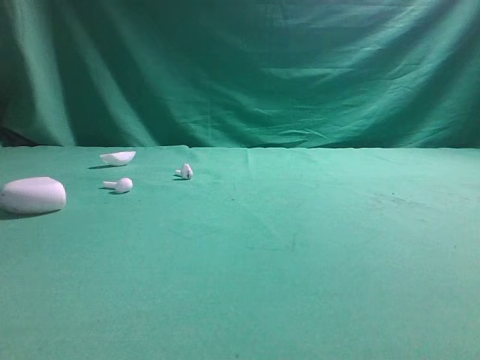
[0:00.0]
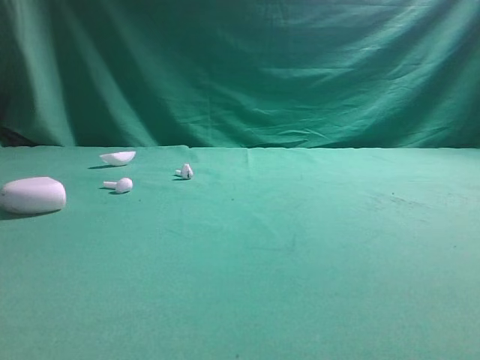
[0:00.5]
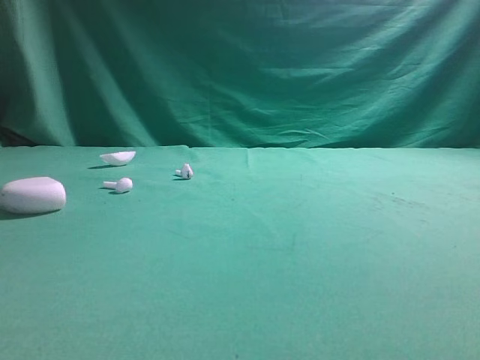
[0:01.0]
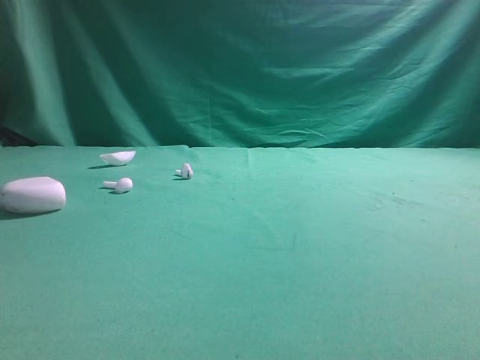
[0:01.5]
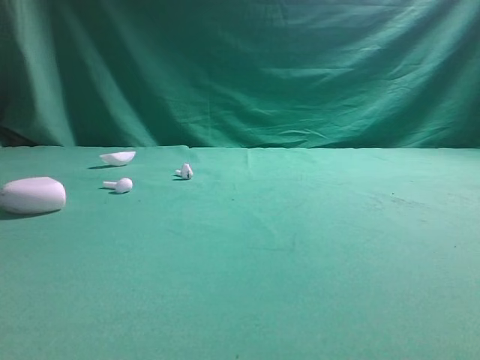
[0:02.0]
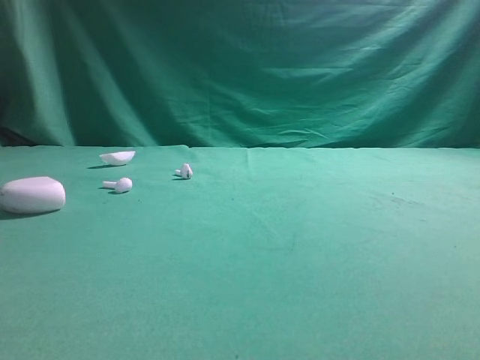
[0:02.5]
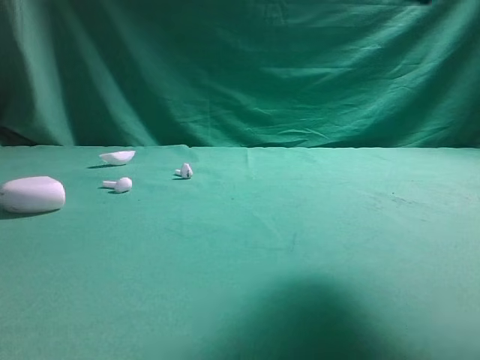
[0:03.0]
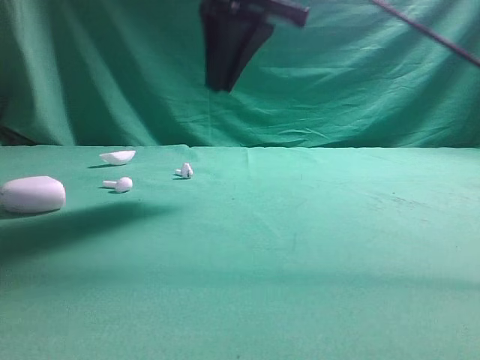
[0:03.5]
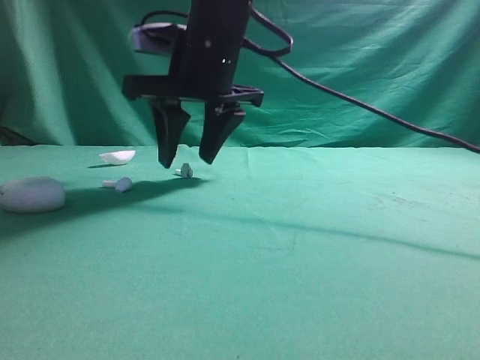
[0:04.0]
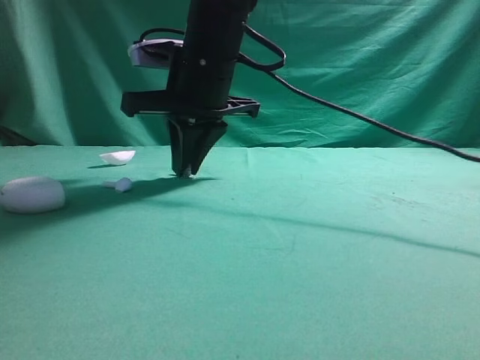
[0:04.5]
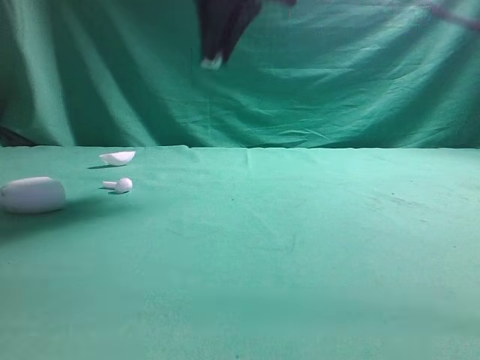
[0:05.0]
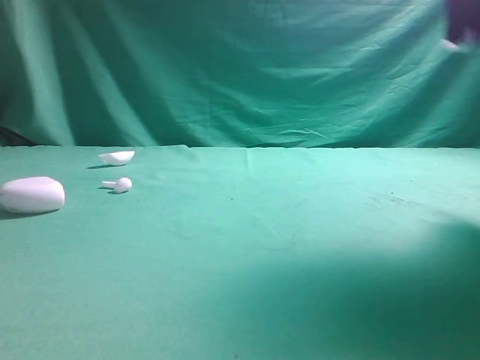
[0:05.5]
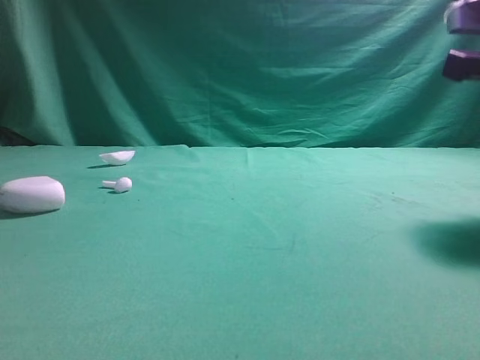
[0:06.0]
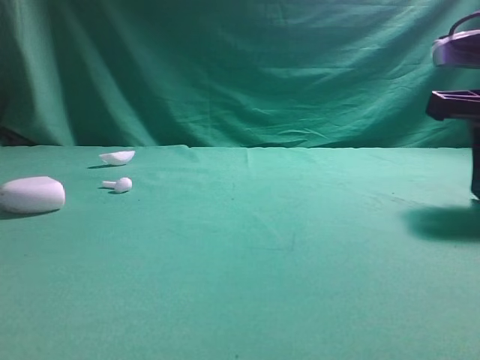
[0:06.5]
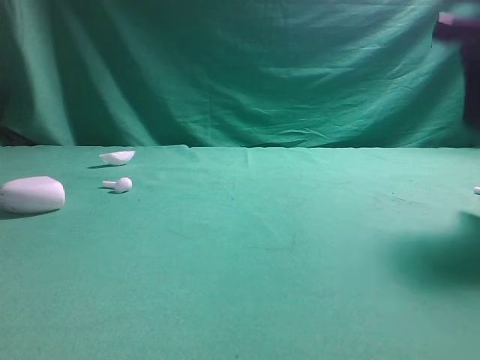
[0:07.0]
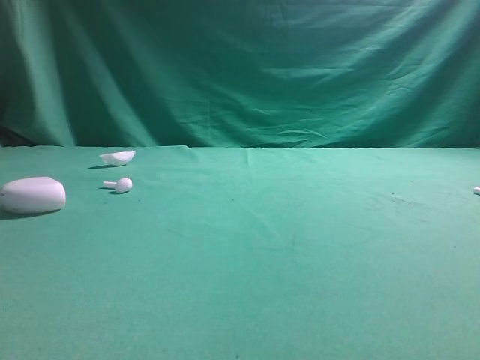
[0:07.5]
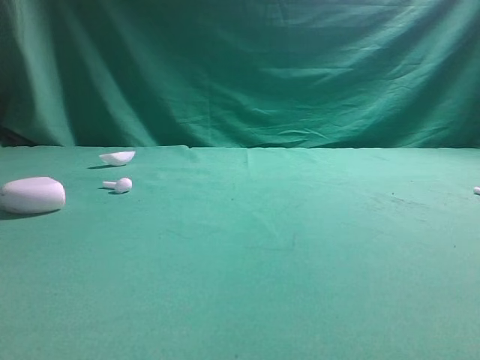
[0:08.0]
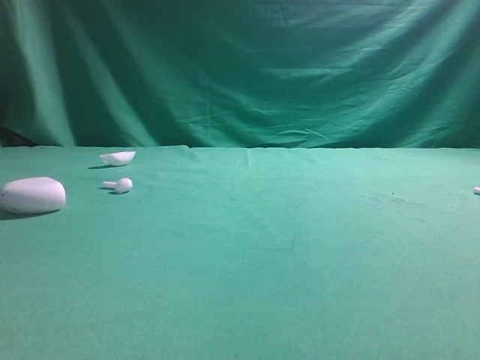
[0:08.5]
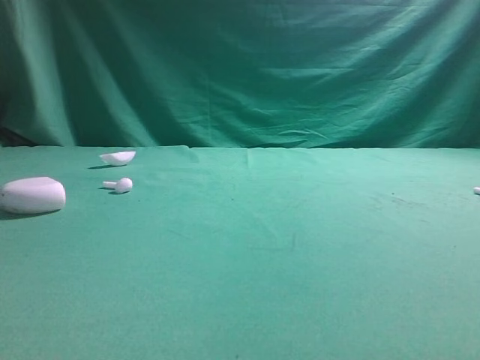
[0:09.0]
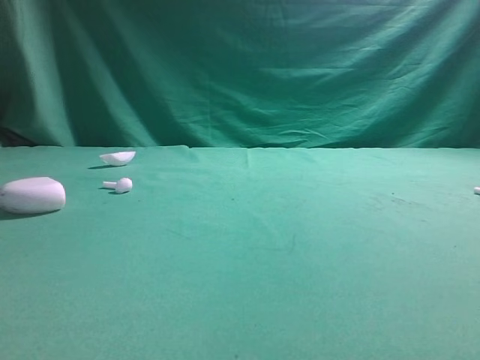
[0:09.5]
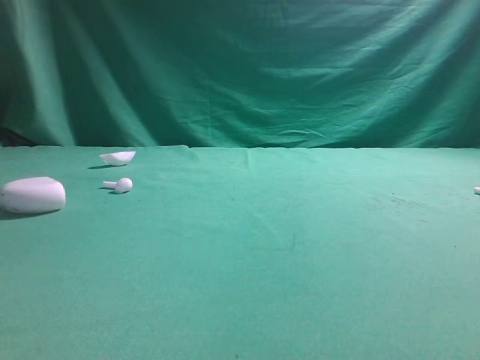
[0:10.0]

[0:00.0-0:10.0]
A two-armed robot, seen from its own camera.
Step, 0:00.0 to 0:04.5: Grasp the Bluetooth earbud.
Step, 0:05.0 to 0:06.5: Place bluetooth earbud on the right side of the table.

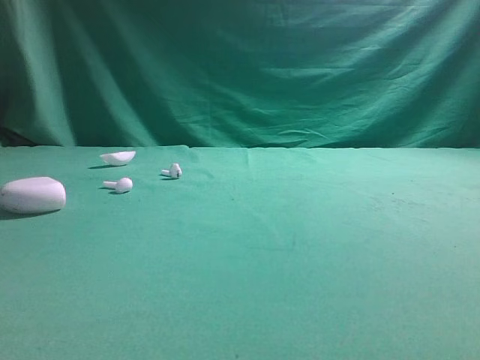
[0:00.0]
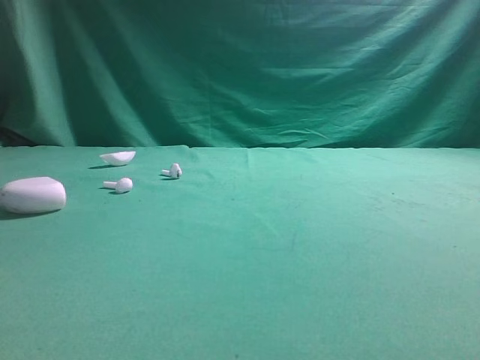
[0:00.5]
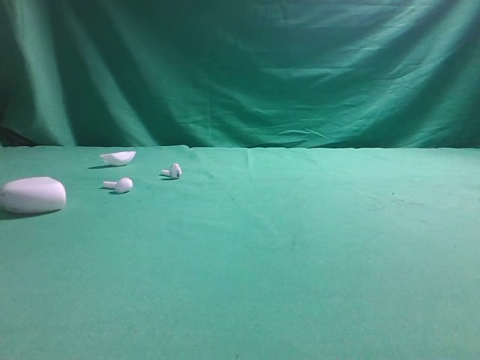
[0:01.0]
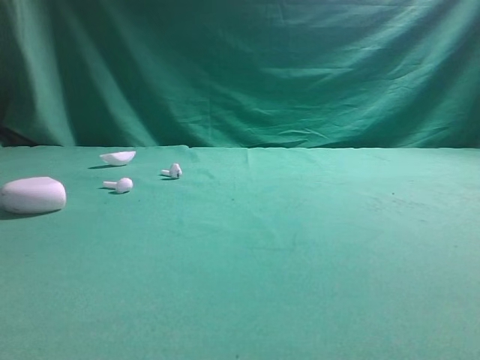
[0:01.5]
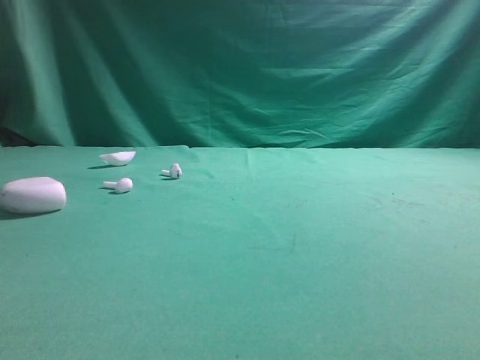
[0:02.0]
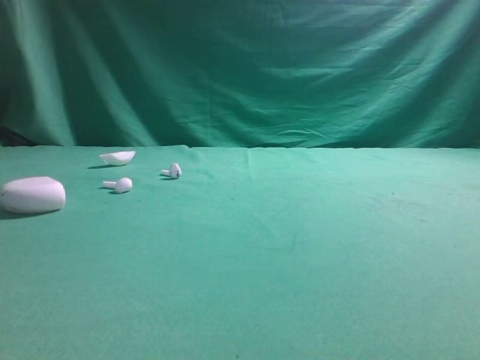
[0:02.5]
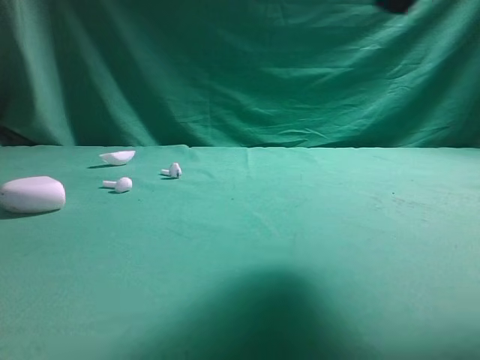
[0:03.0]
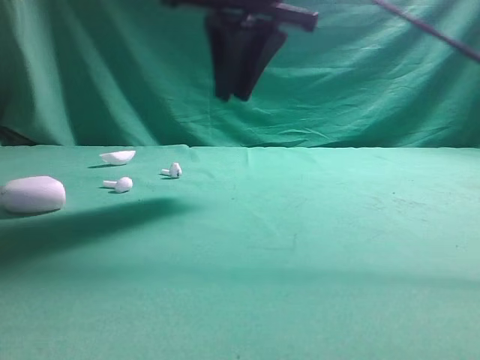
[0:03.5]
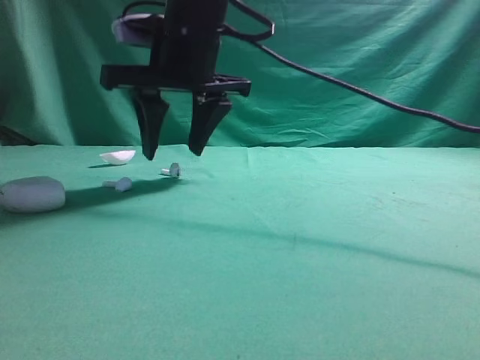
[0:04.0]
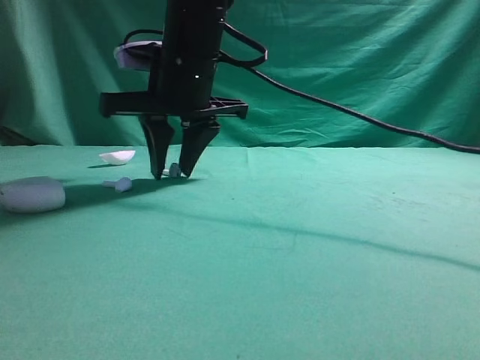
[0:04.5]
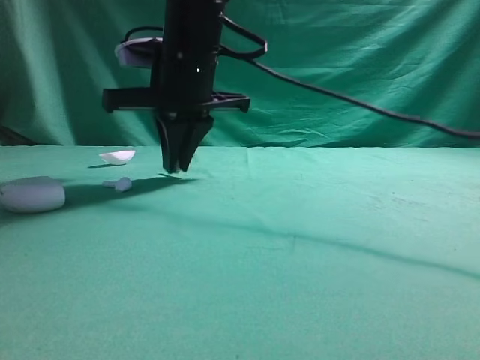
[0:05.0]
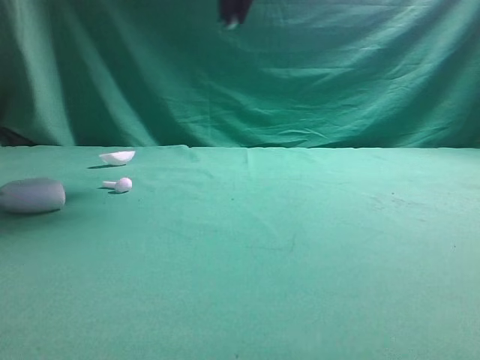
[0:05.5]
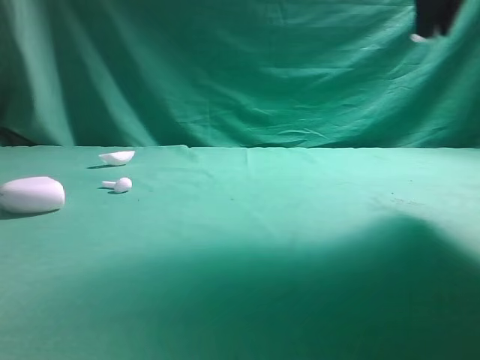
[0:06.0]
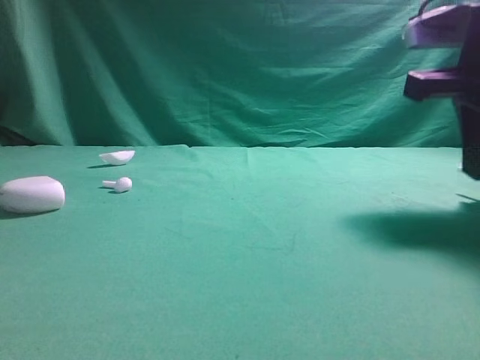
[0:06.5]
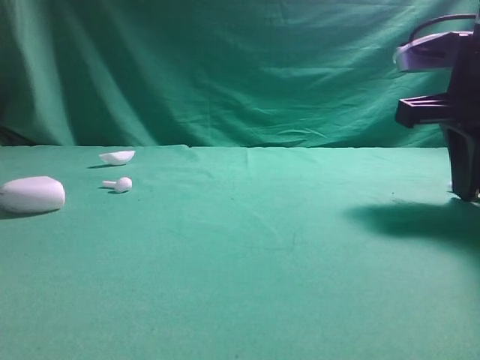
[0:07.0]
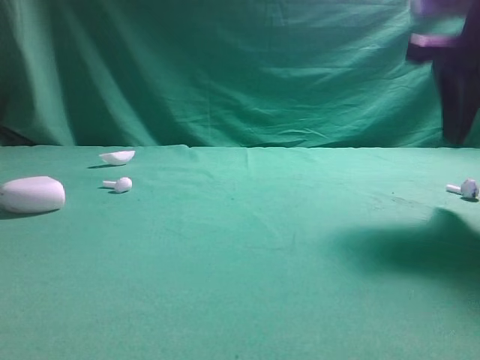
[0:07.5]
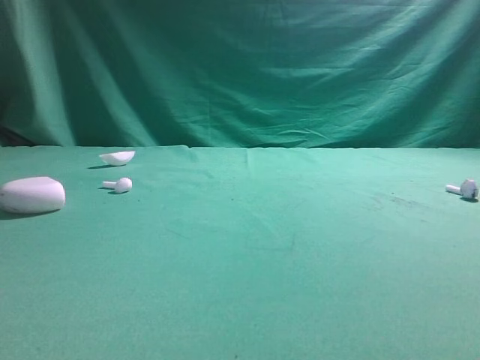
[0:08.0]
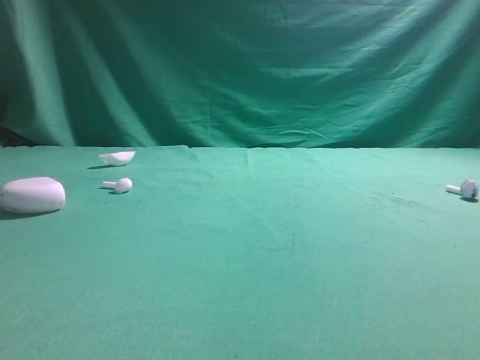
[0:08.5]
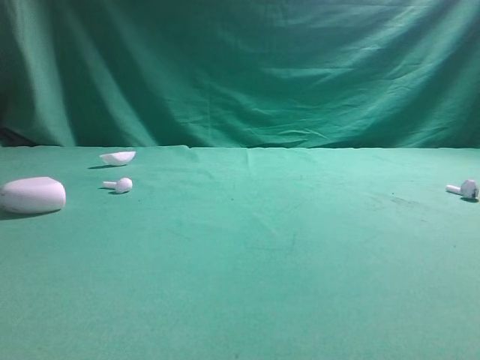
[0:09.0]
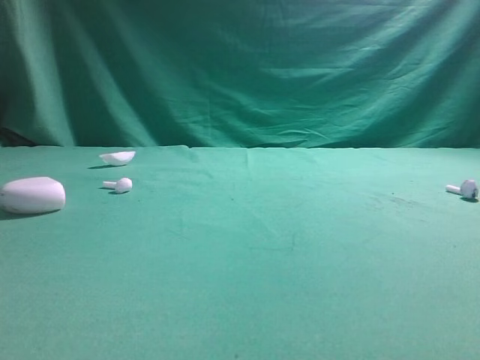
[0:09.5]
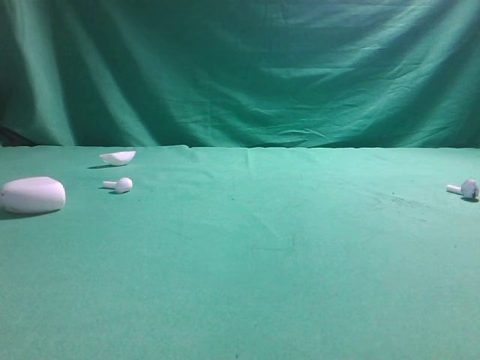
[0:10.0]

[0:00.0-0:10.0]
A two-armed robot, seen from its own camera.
Step, 0:00.0 to 0:04.5: Grasp the Bluetooth earbud.
Step, 0:05.0 to 0:06.5: Place bluetooth earbud on the right side of the table.

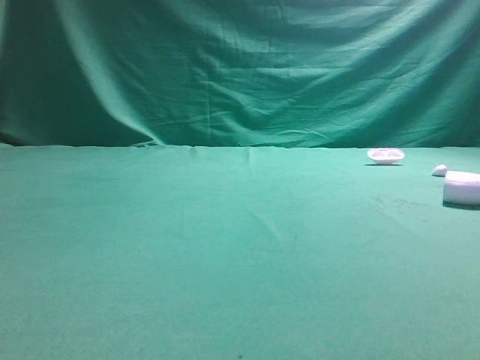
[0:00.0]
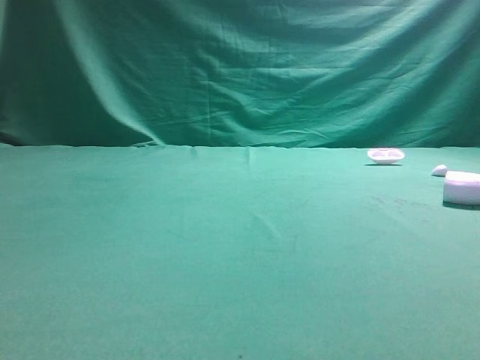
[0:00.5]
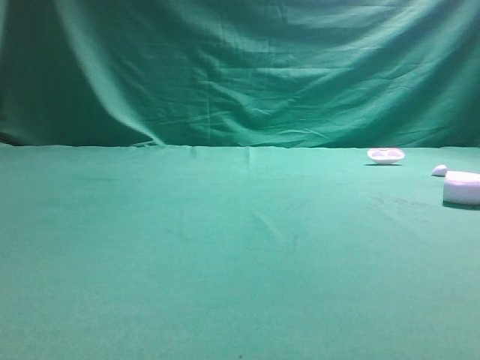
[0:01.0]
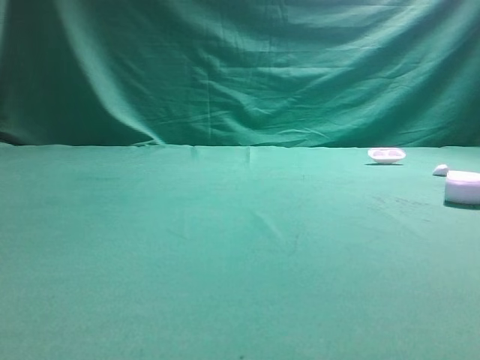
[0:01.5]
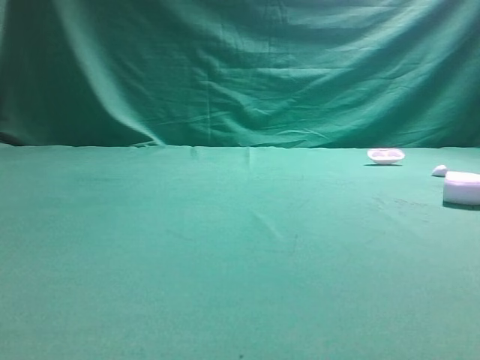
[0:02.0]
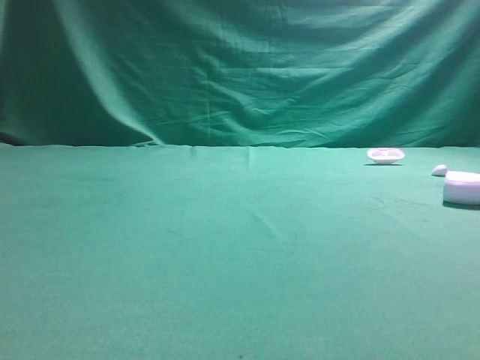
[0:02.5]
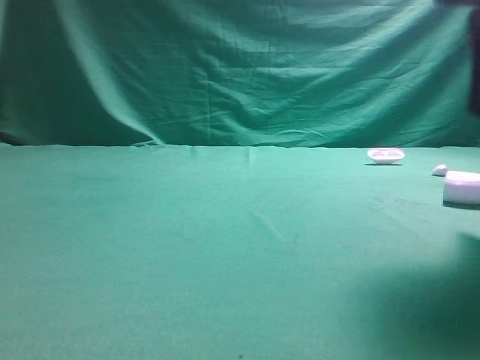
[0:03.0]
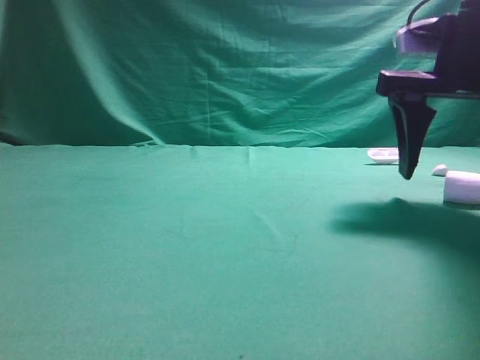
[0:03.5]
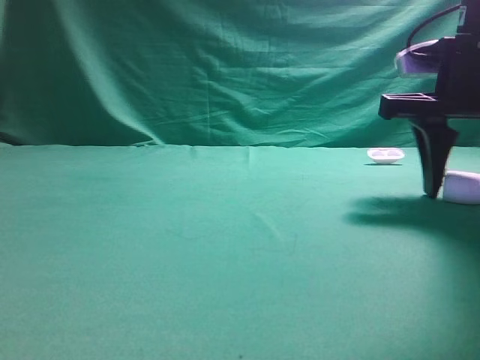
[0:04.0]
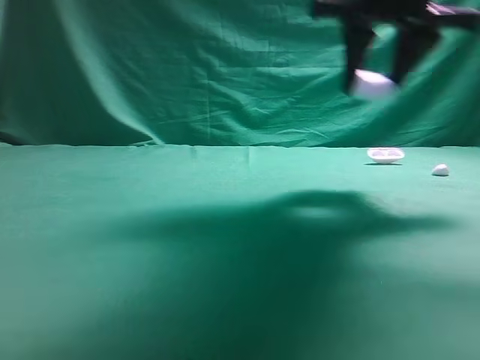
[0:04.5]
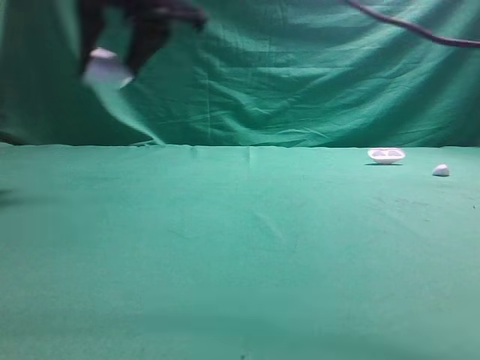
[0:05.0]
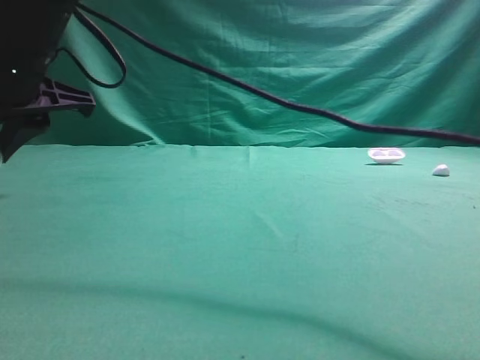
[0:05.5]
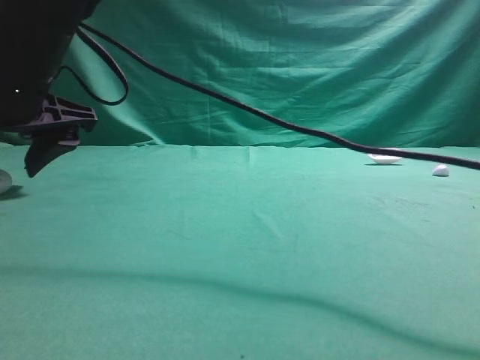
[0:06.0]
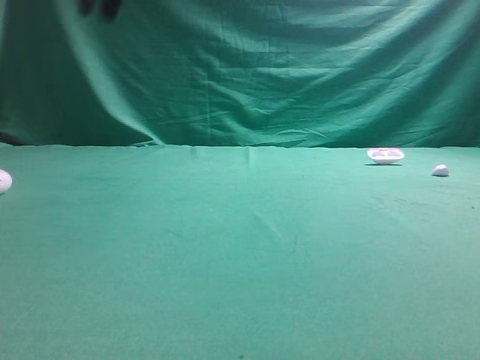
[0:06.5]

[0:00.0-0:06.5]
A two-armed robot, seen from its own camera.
Step, 0:00.0 to 0:04.0: Grasp the Bluetooth earphone case.
Step, 0:04.5 to 0:06.0: Place bluetooth earphone case on the left side of the table.
